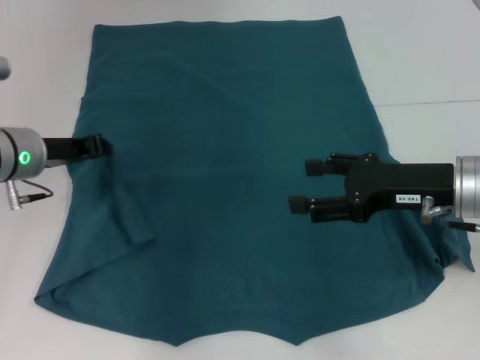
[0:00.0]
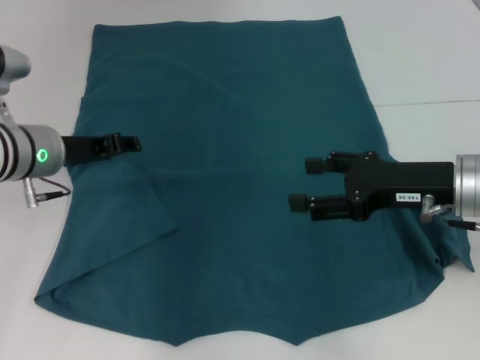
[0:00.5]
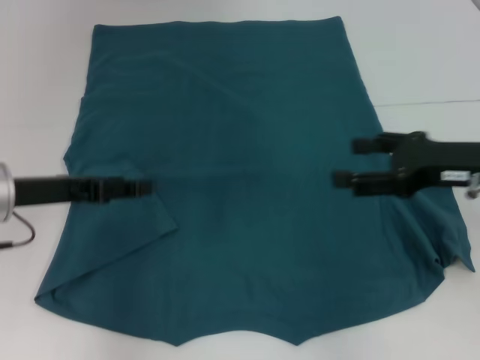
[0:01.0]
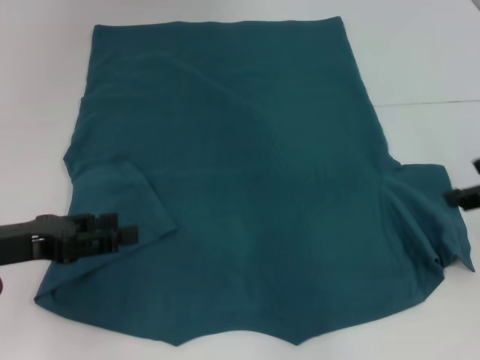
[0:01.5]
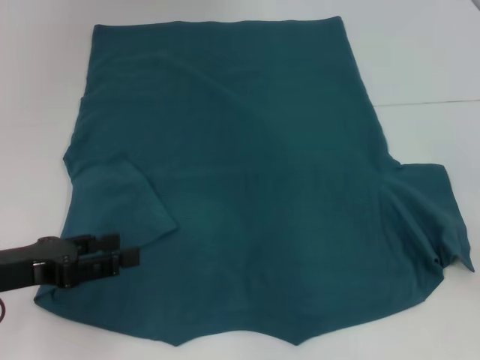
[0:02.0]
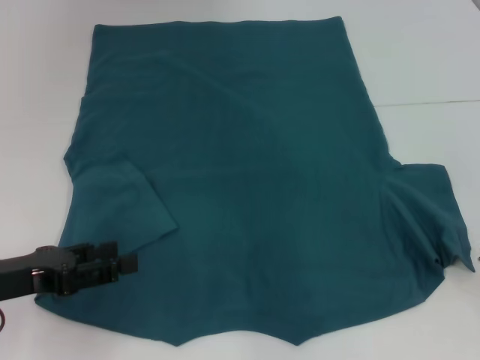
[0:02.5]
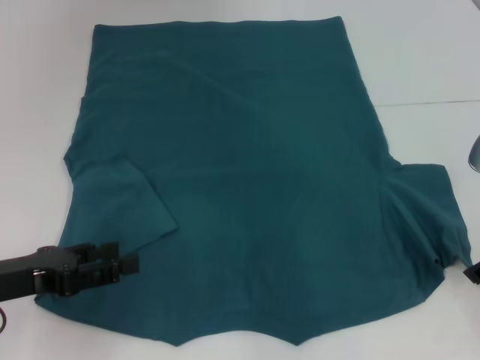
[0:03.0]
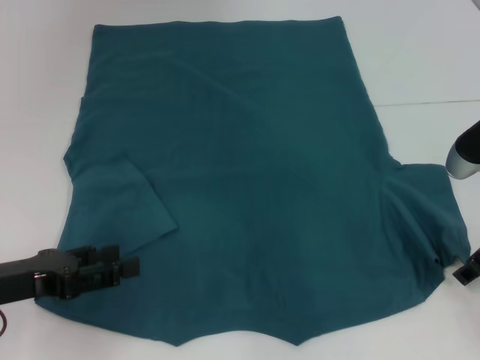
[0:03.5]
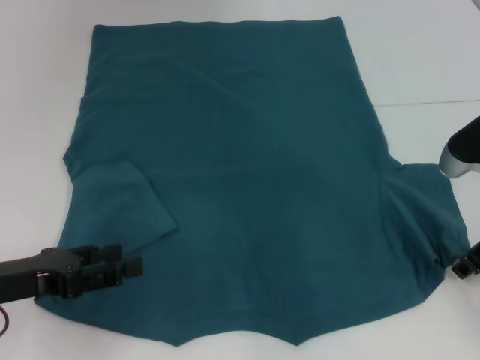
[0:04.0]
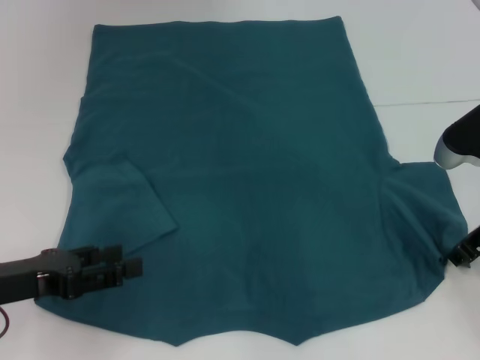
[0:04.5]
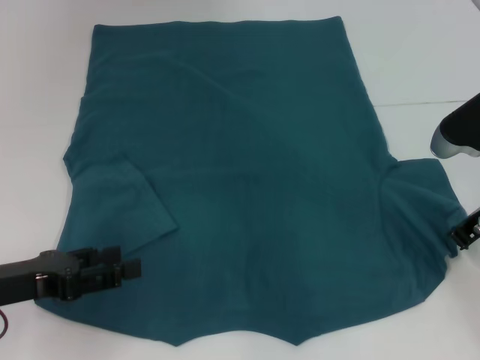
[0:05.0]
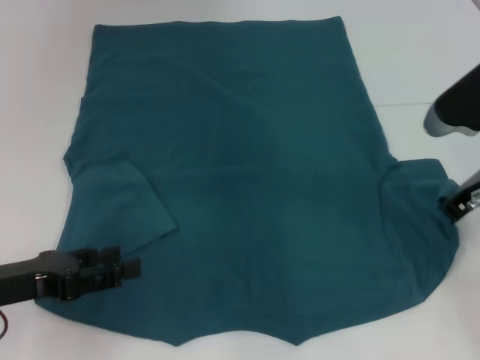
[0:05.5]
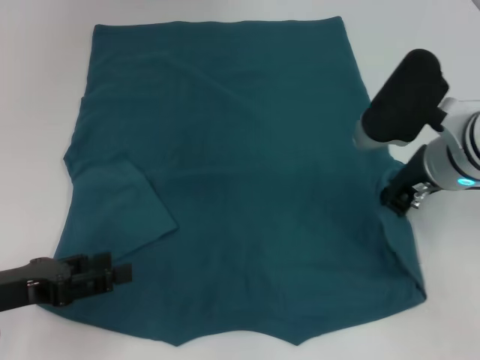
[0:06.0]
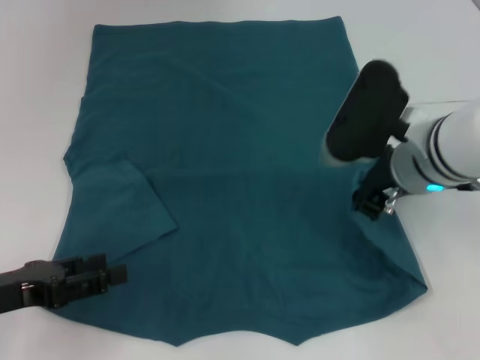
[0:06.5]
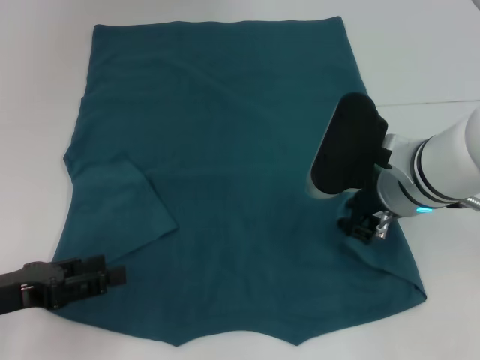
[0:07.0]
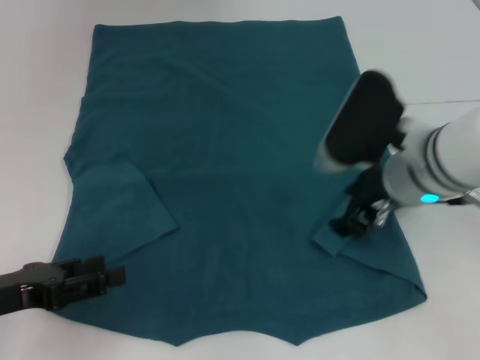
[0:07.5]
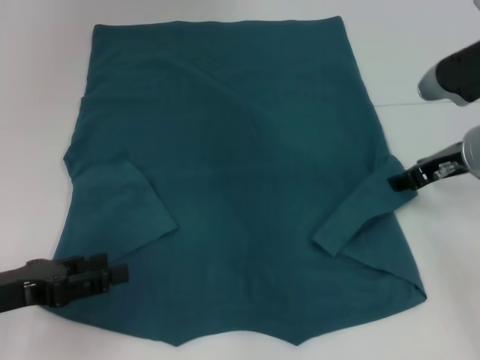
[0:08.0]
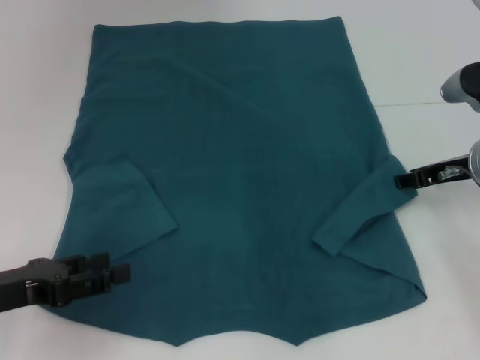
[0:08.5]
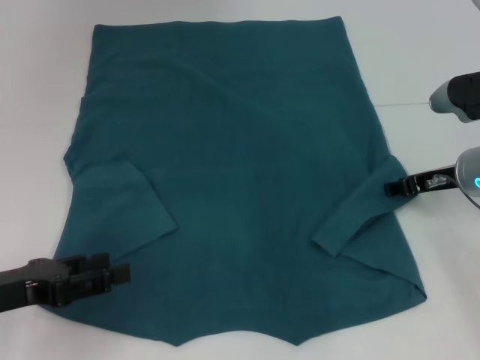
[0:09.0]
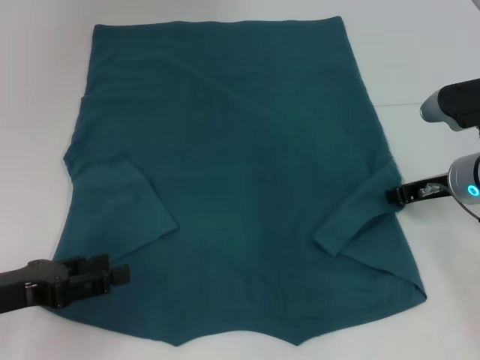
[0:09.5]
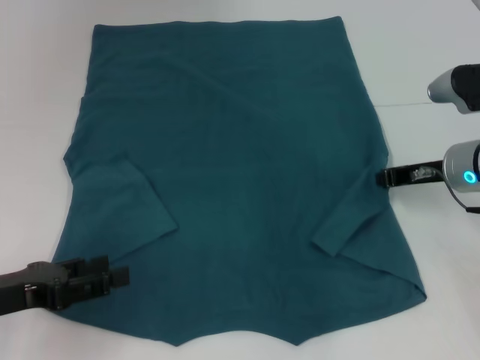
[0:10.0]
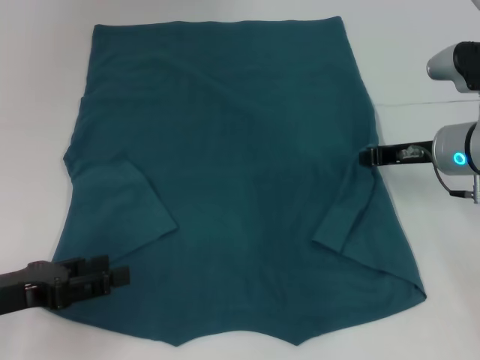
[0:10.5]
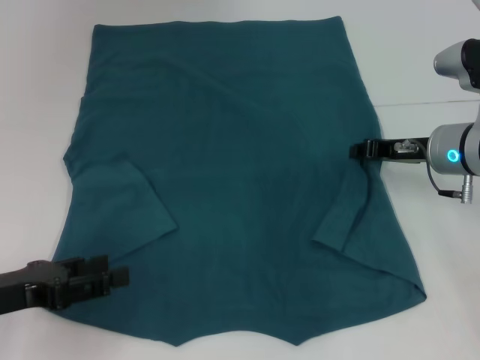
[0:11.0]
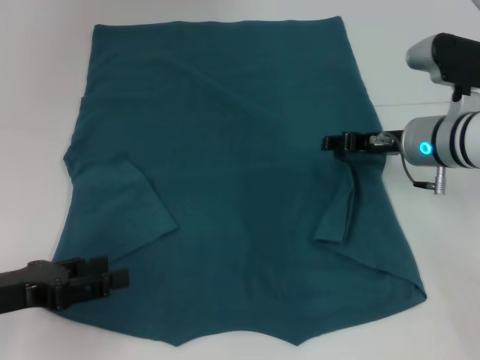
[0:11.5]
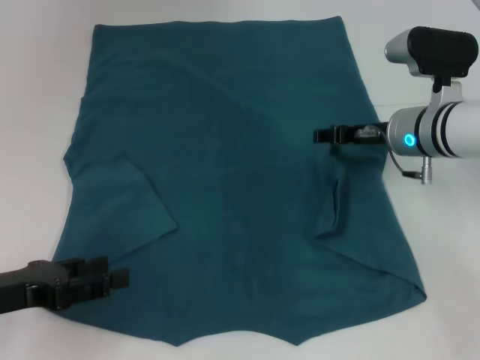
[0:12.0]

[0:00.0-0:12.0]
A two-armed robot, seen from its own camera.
0:00.0 to 0:02.0: The left gripper is displaced backward by approximately 15 cm, and opens its fingers. Meanwhile the right gripper shifts some 10 cm to the right and upward.
0:02.0 to 0:04.0: The right gripper heads downward, covering some 5 cm.
0:04.0 to 0:06.0: The right gripper goes some 10 cm to the left, and closes its fingers.
0:06.0 to 0:08.0: The right gripper moves to the right, roughly 5 cm, and opens its fingers.
0:08.0 to 0:10.0: The right gripper closes its fingers.
0:10.0 to 0:12.0: The right gripper goes some 5 cm to the left, and opens its fingers.

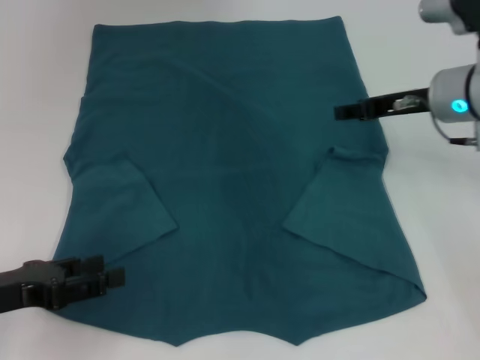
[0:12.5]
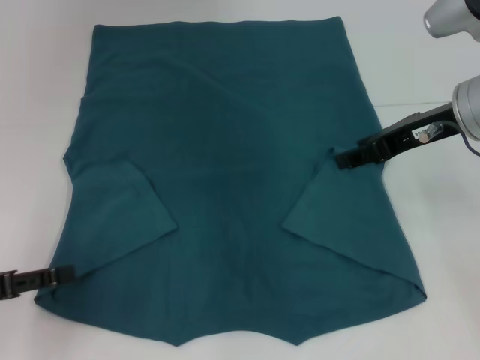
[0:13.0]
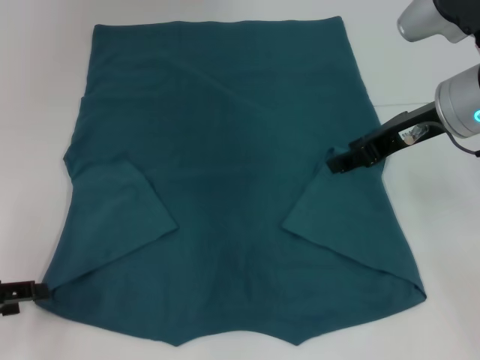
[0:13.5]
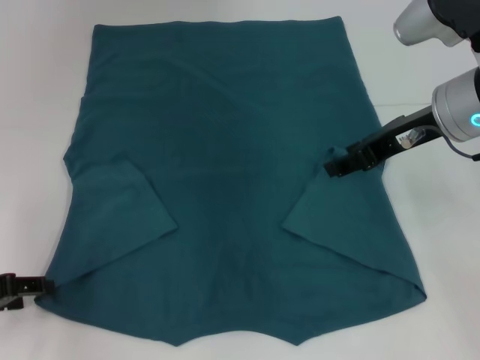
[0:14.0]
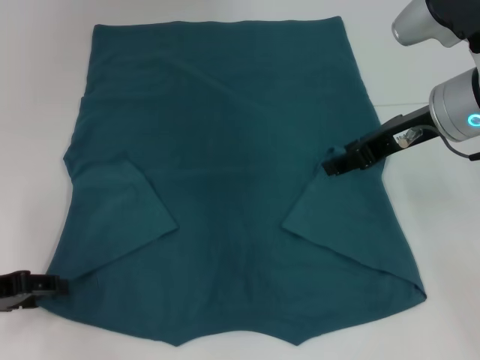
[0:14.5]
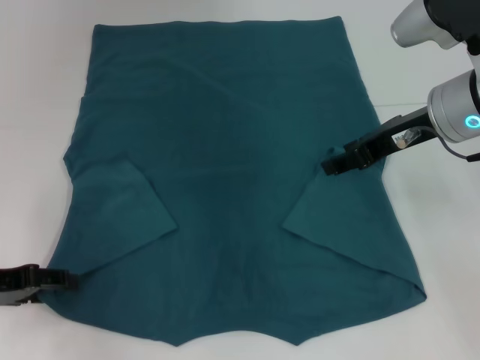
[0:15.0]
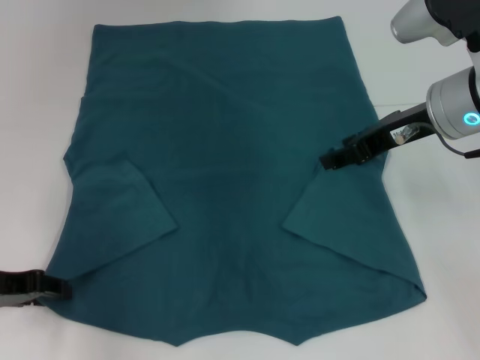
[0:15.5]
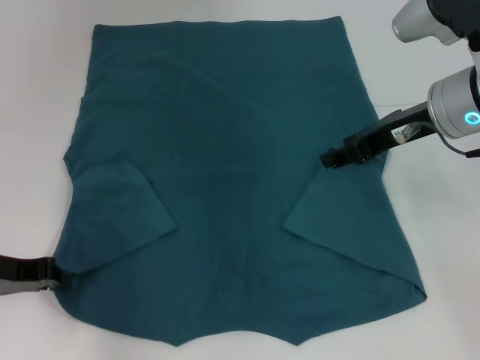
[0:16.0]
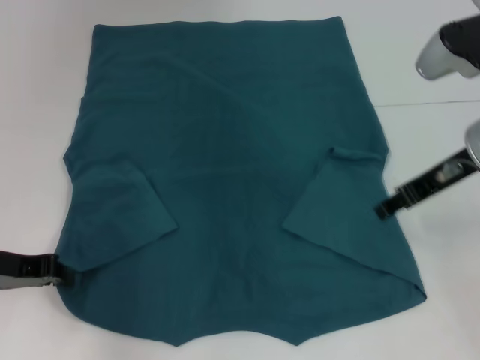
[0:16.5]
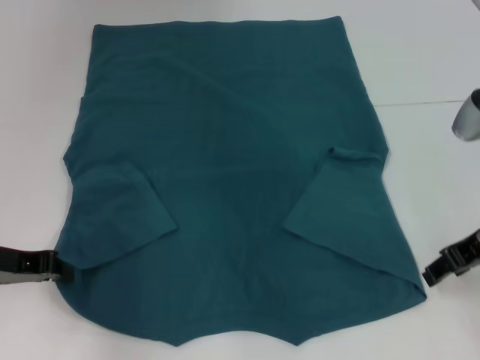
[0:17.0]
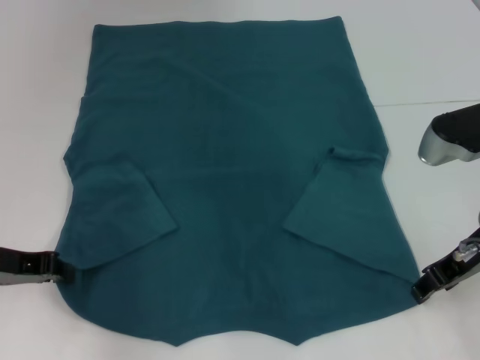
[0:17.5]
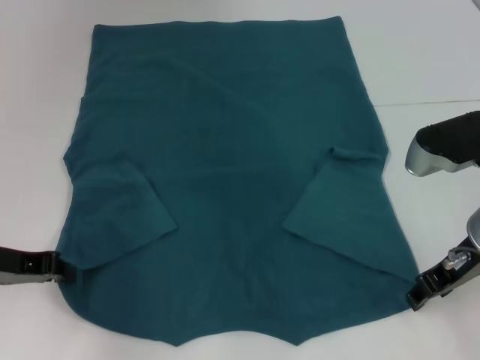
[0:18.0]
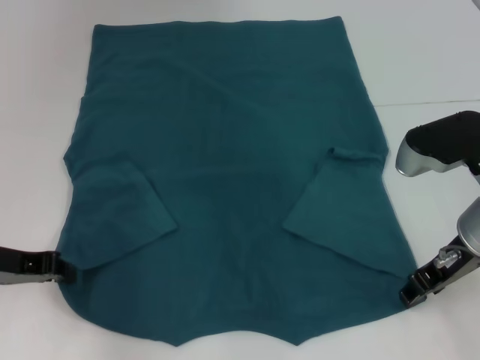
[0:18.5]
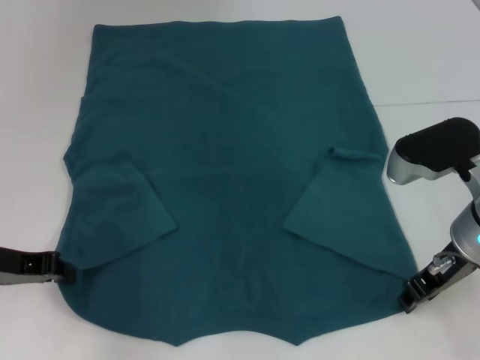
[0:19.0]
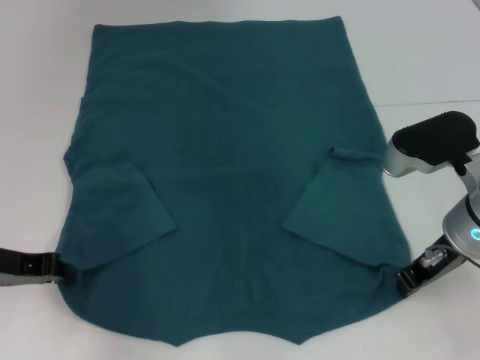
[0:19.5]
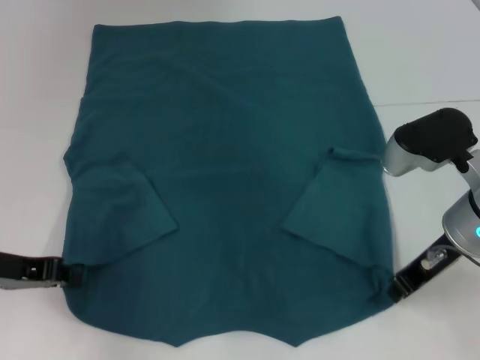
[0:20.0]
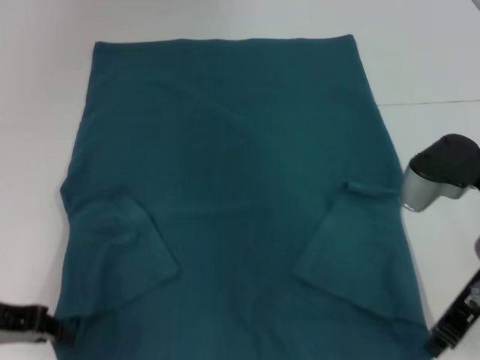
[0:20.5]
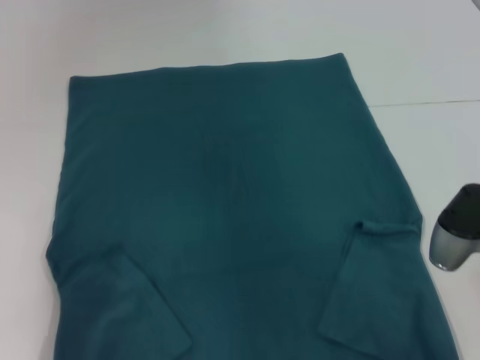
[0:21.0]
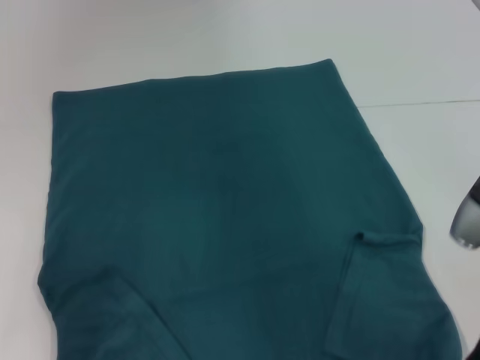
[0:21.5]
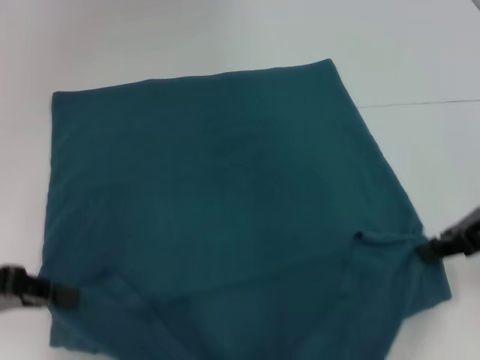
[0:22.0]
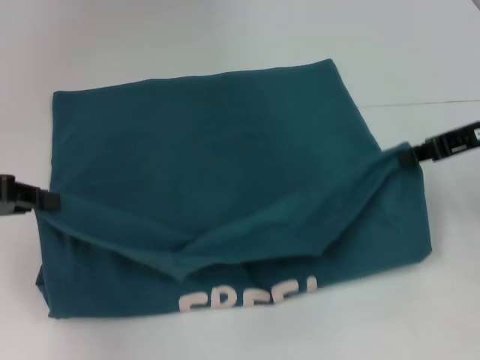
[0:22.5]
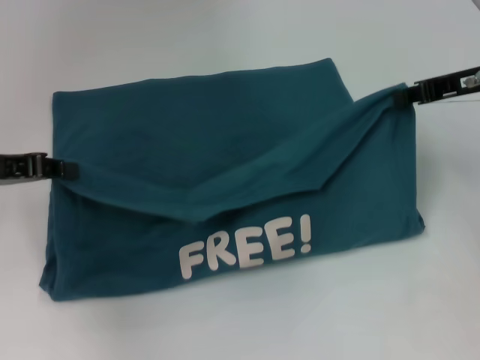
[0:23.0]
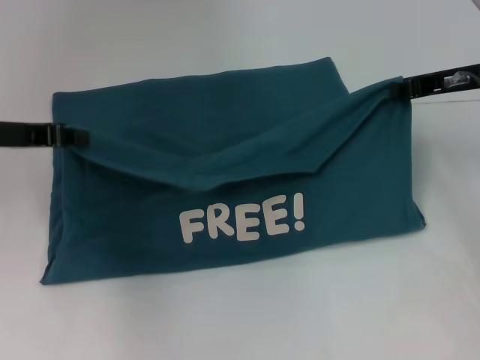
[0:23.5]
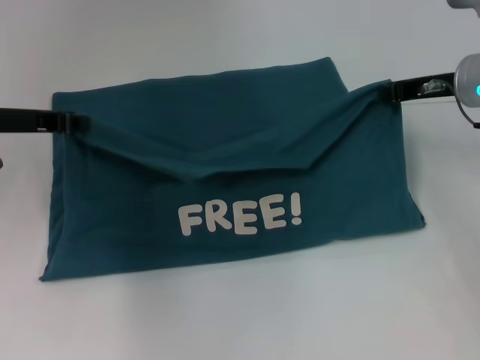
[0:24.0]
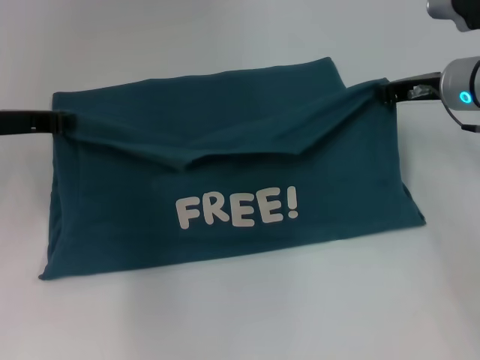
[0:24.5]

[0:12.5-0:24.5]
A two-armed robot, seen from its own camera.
Step, 0:12.5 to 0:15.5: Grab the bottom left corner with your left hand.
Step, 0:16.0 to 0:19.0: Grab the bottom right corner with your right hand.
0:12.5 to 0:14.5: The right gripper changes place by about 5 cm.
0:14.5 to 0:16.5: The left gripper closes up.
0:16.5 to 0:18.5: The right gripper goes approximately 5 cm downward.
0:18.5 to 0:20.5: The right gripper closes.
0:20.5 to 0:22.5: The left gripper moves upward, roughly 5 cm; the right gripper goes about 10 cm to the right, forward and upward.
0:22.5 to 0:24.5: The right gripper is displaced forward by some 5 cm; the left gripper moves forward and to the right, roughly 10 cm.

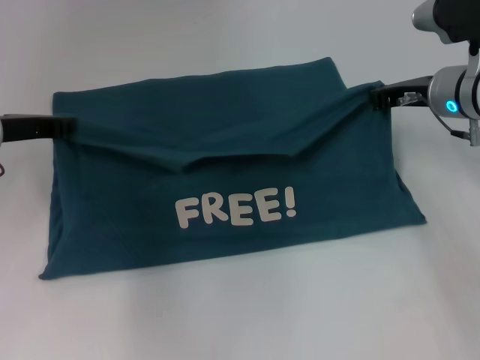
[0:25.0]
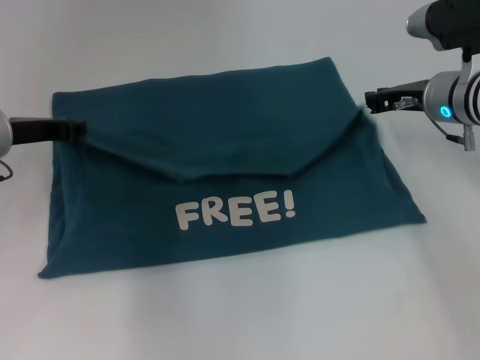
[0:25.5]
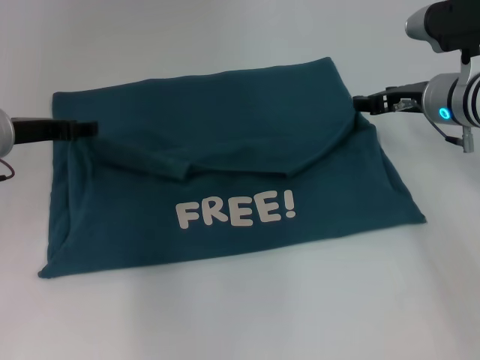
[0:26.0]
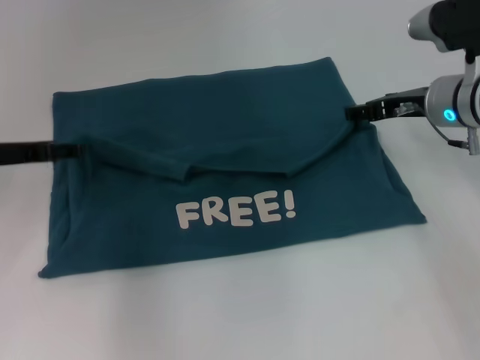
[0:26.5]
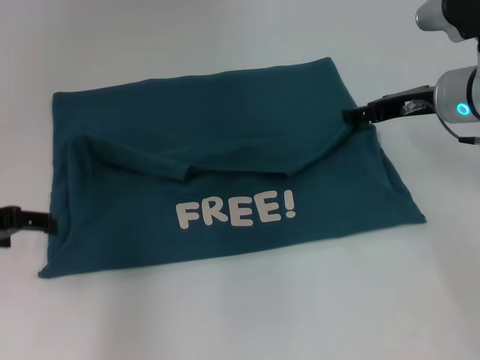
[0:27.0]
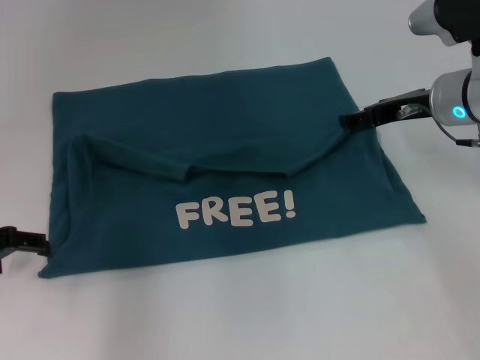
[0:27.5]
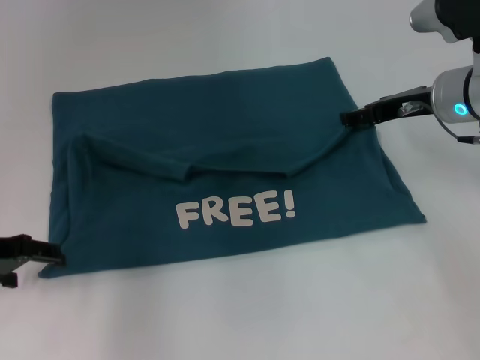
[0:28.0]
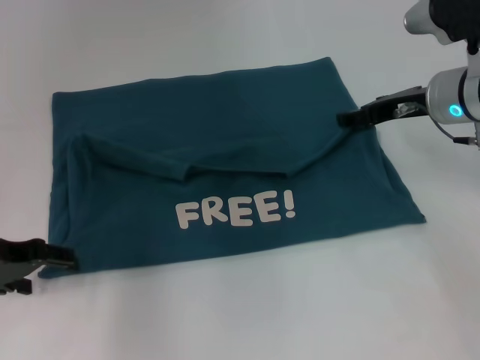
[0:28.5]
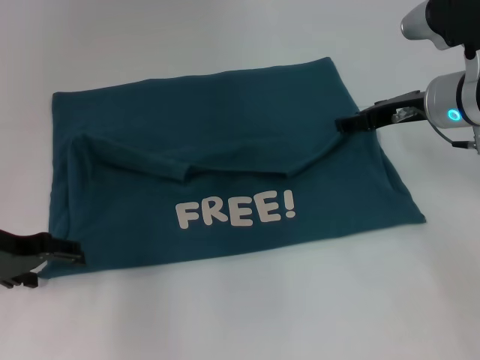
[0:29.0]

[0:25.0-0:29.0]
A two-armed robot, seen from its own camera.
0:25.0 to 0:27.0: The left gripper travels backward by roughly 5 cm, and opens up. Meanwhile the right gripper opens its fingers.
0:27.0 to 0:29.0: The grippers move only a little.
